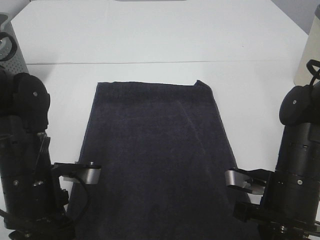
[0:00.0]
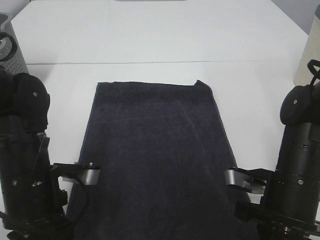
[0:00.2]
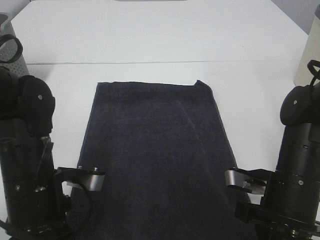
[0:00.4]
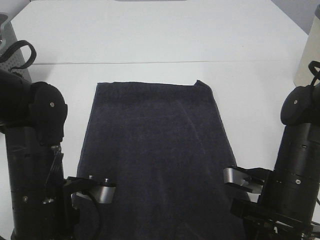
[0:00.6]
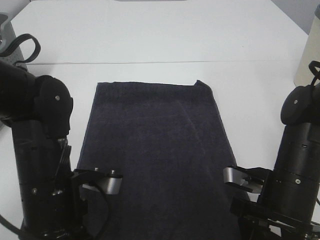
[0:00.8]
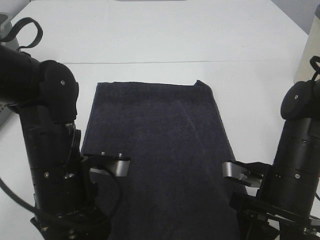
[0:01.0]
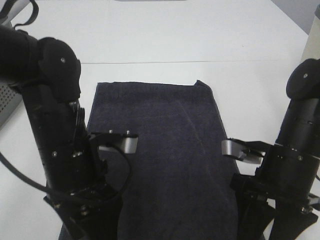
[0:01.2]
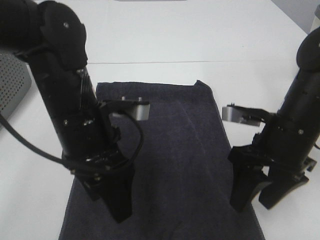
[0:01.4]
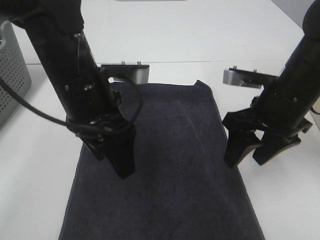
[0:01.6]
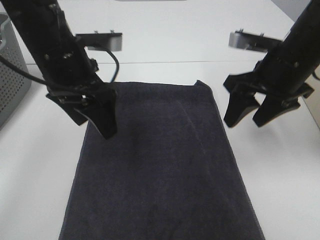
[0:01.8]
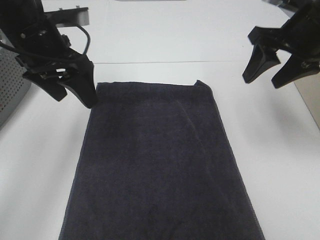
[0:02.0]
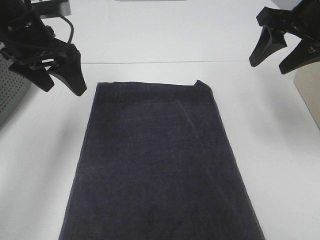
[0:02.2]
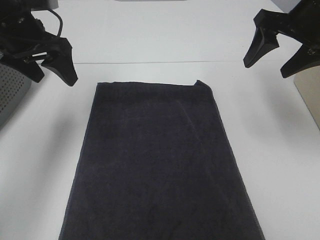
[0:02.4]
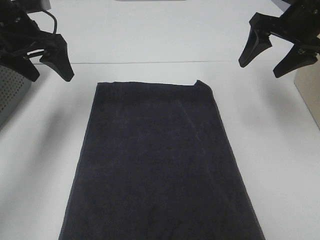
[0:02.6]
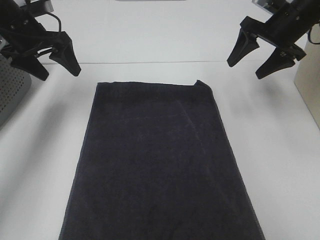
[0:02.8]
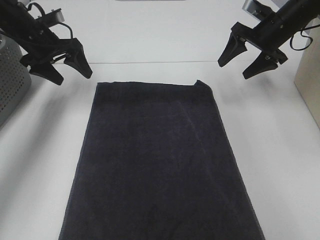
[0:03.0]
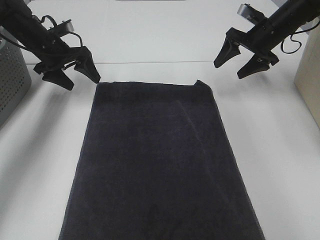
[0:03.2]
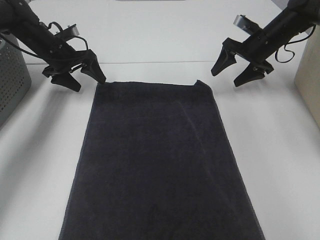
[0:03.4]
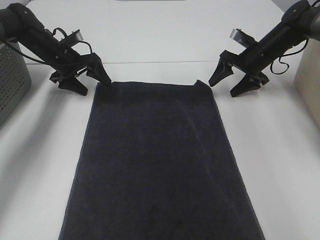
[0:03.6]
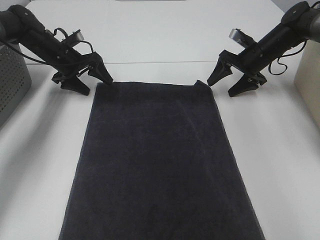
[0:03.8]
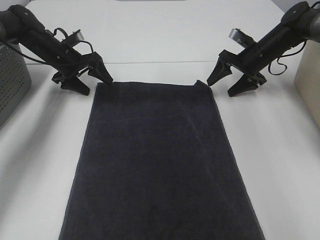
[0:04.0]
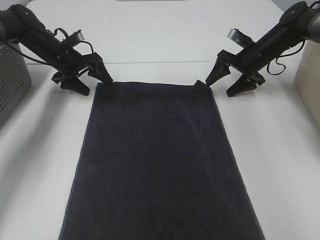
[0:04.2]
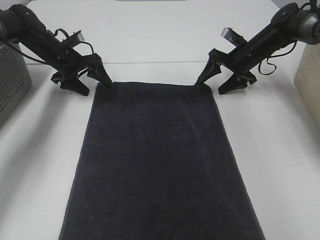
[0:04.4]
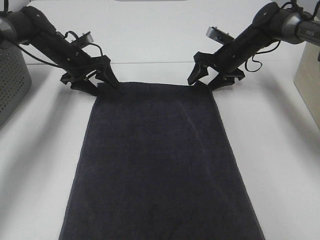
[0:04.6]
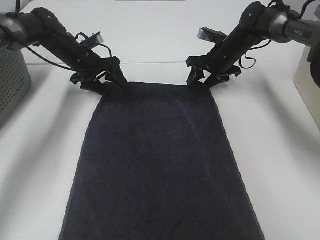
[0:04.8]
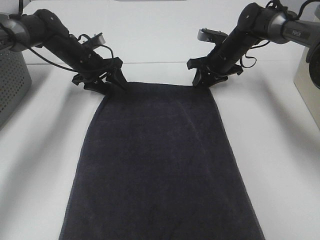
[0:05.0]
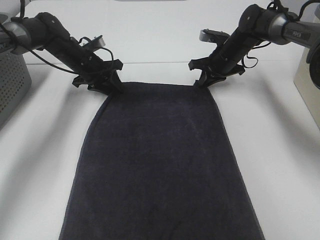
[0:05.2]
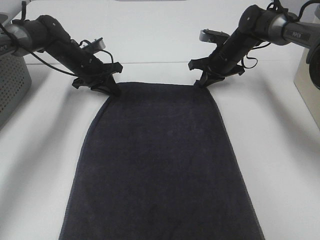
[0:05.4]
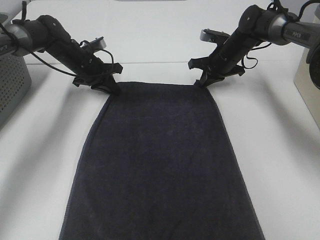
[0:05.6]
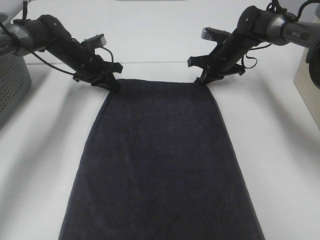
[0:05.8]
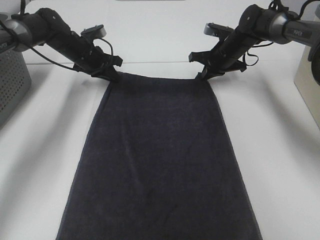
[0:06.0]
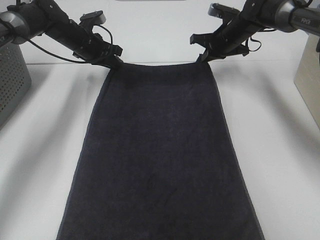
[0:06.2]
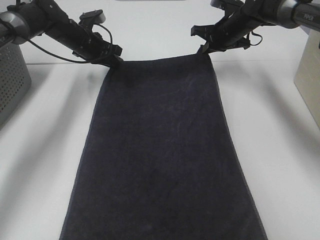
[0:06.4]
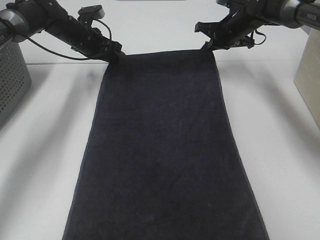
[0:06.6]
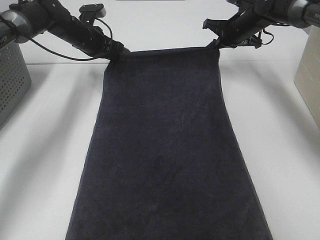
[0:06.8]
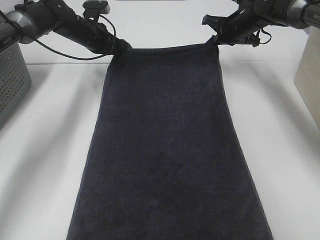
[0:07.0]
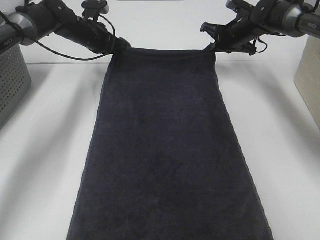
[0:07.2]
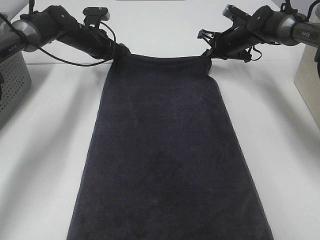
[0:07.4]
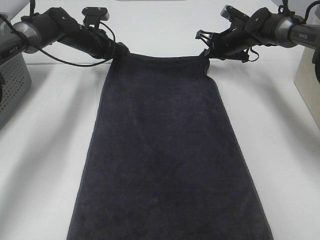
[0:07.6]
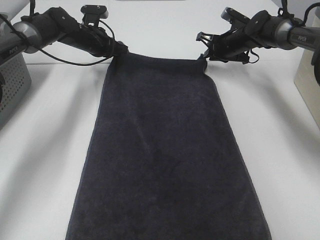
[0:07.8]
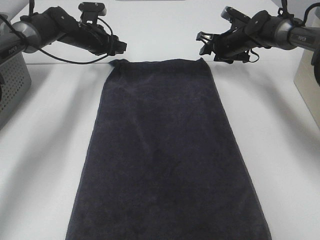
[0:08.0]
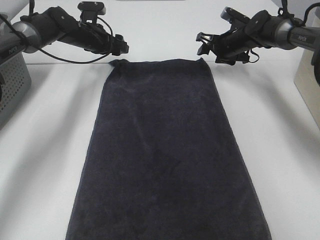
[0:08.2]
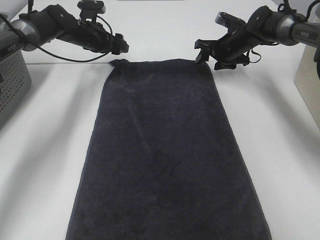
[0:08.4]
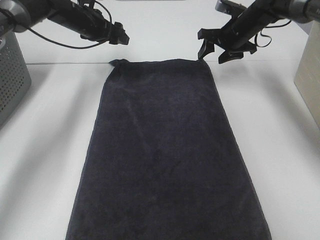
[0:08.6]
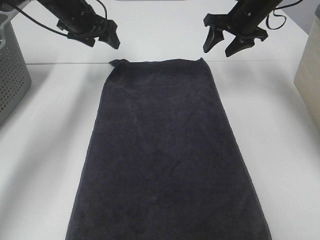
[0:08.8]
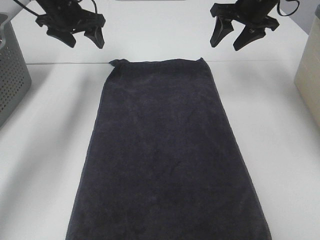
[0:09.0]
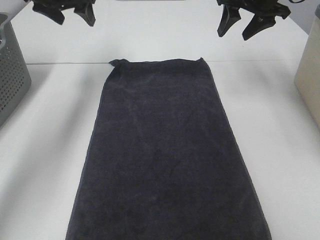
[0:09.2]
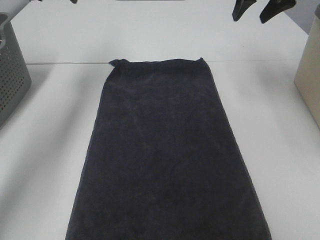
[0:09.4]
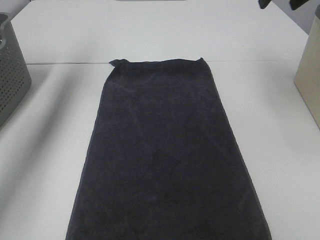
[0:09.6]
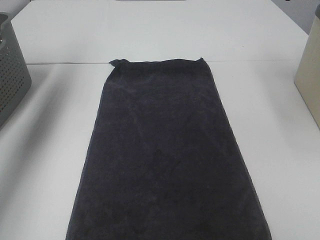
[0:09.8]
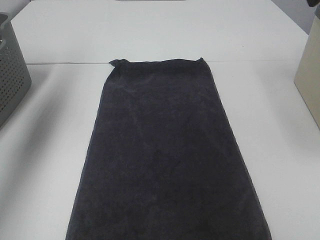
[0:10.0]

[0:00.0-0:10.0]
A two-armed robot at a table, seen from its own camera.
Task of the whole recording: Remove the towel and place it.
Step, 0:00.0 to 0:02.0: Left hand:adjust the gray towel.
Step, 0:00.0 to 0:02.0: Right hand:adjust the gray towel.
0:00.0 to 0:01.4: The left gripper heads upward and to the right, covering some 10 cm, and opens its fingers; the right gripper moves upward, about 5 cm, and opens up.
0:01.4 to 0:02.8: The left gripper travels forward and to the left by roughly 25 cm; the right gripper shifts roughly 20 cm forward.
0:02.8 to 0:04.2: Both grippers move downward and forward, some 15 cm.
0:04.2 to 0:05.8: The left gripper changes place by about 5 cm, and closes its fingers. The right gripper travels to the left by some 5 cm, and closes.
0:05.8 to 0:07.2: The left gripper ends up some 5 cm from where it was. Meanwhile the right gripper changes place by about 5 cm.
0:07.2 to 0:08.6: The right gripper shifts by roughly 5 cm, and opens up; the left gripper opens up.
0:08.6 to 0:10.0: The right gripper goes roughly 35 cm backward and upward. Meanwhile the left gripper shifts about 35 cm upward, backward and to the left.

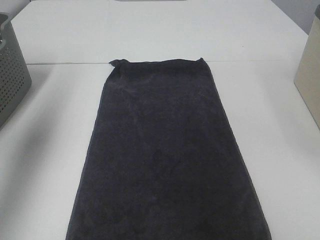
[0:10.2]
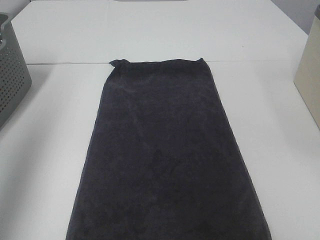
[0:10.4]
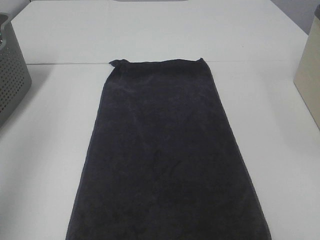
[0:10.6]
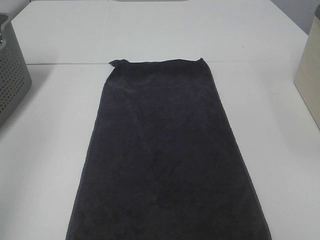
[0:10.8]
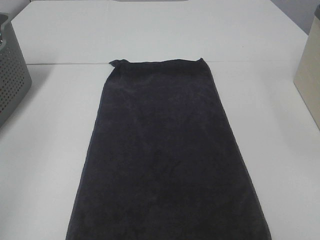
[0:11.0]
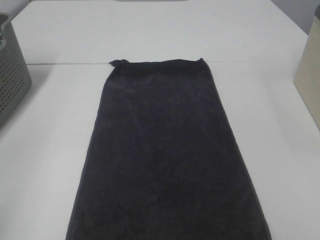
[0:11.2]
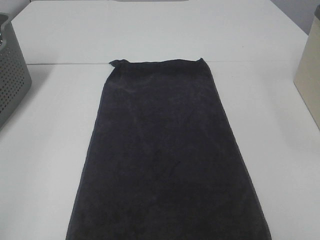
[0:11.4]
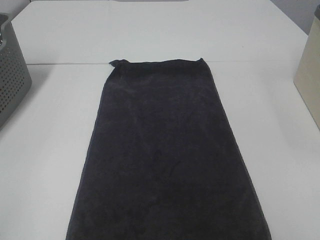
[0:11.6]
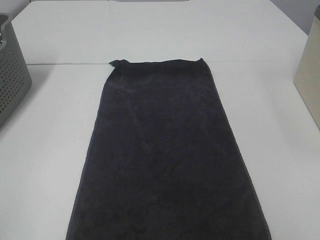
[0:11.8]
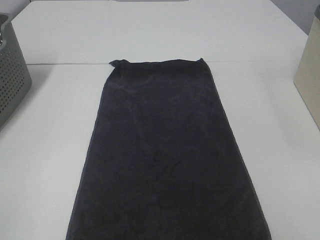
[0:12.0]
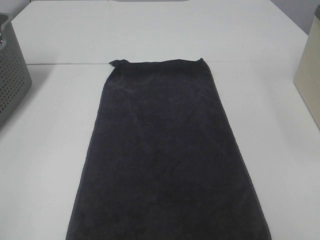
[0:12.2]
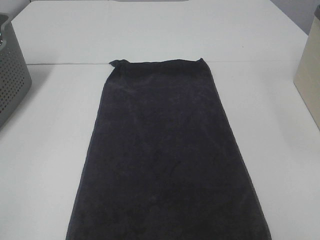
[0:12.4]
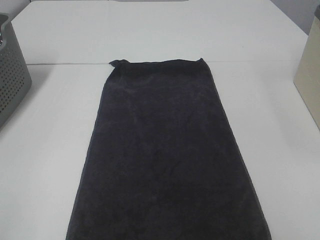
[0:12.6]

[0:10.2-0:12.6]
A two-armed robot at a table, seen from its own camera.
Task of the whole recording: Remove the towel and place it.
0:10.2 to 0:11.4: The left gripper moves backward and downward, some 30 cm.

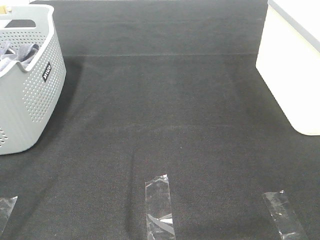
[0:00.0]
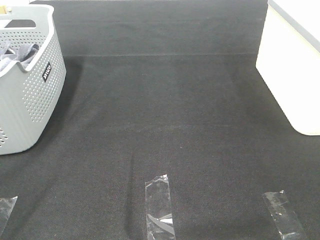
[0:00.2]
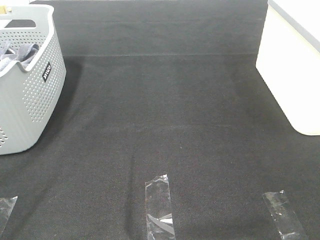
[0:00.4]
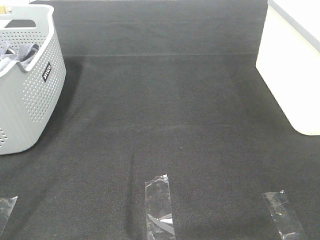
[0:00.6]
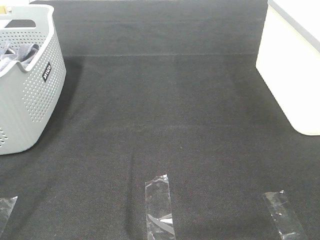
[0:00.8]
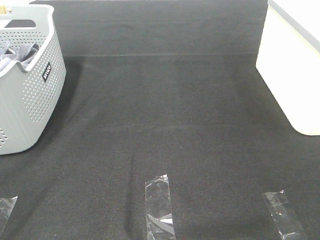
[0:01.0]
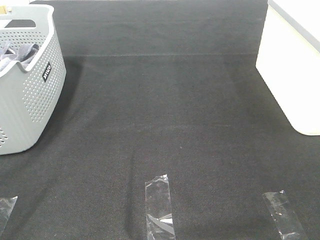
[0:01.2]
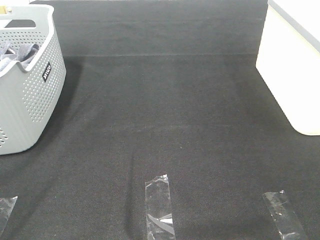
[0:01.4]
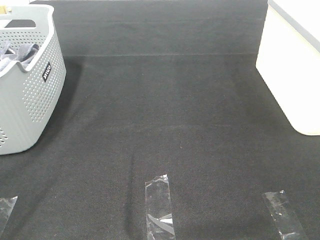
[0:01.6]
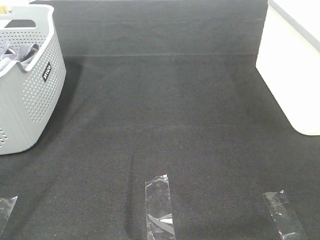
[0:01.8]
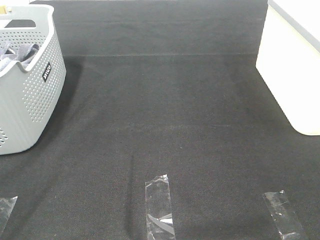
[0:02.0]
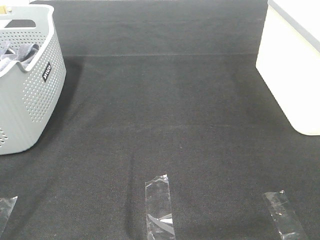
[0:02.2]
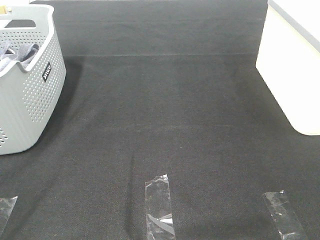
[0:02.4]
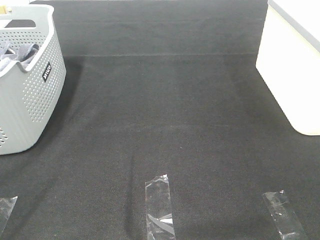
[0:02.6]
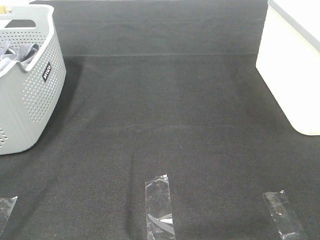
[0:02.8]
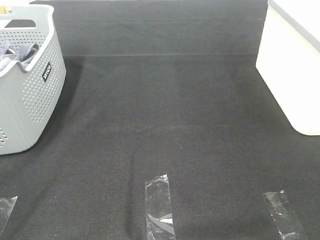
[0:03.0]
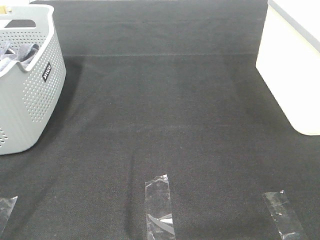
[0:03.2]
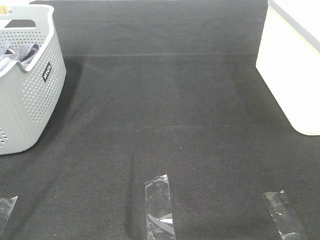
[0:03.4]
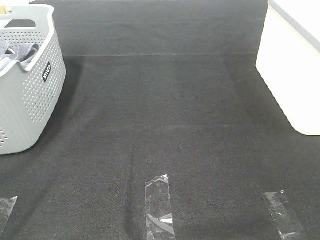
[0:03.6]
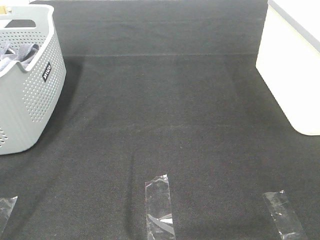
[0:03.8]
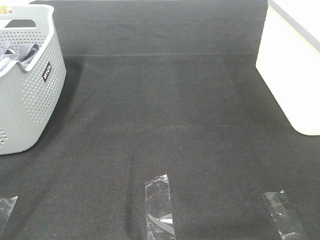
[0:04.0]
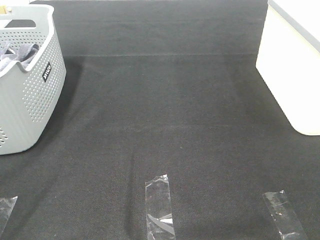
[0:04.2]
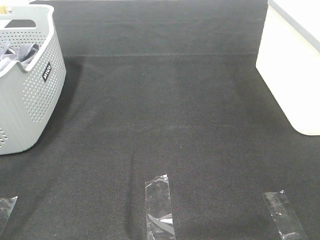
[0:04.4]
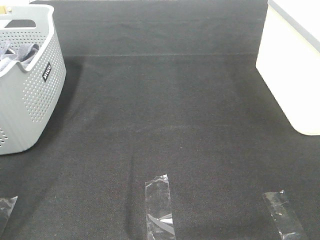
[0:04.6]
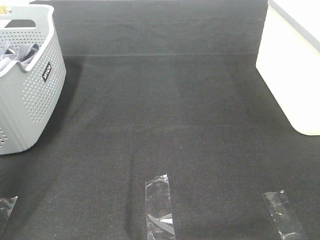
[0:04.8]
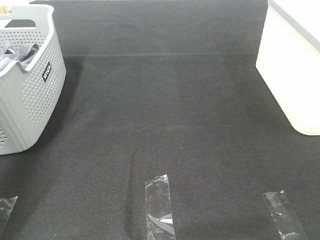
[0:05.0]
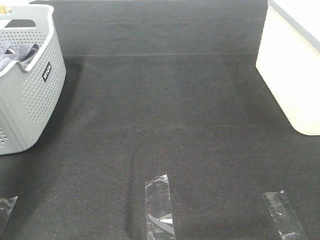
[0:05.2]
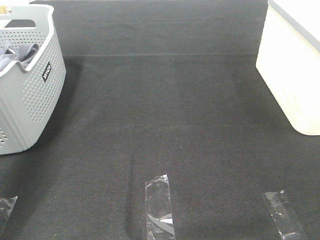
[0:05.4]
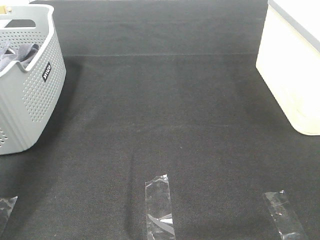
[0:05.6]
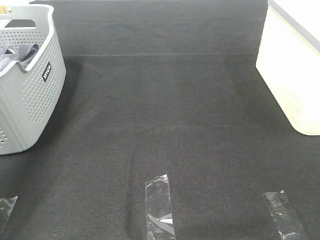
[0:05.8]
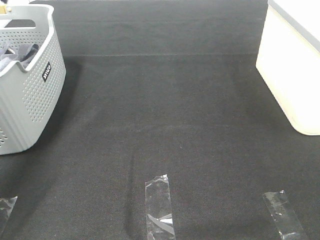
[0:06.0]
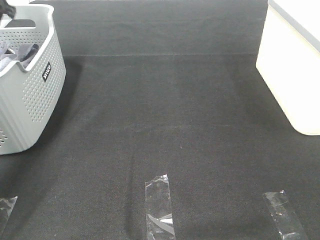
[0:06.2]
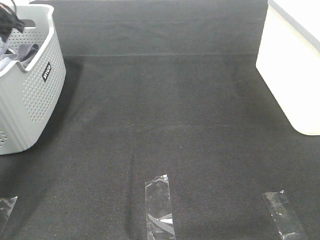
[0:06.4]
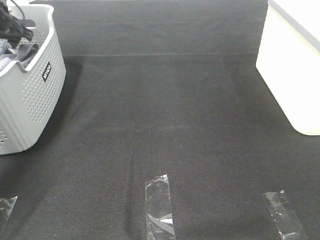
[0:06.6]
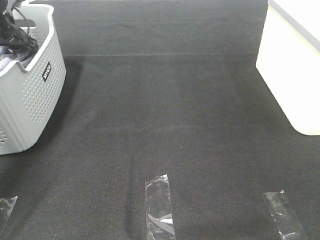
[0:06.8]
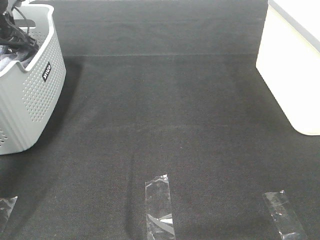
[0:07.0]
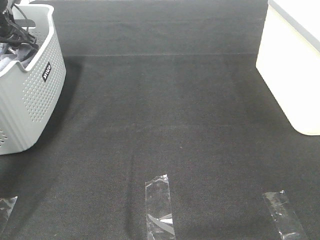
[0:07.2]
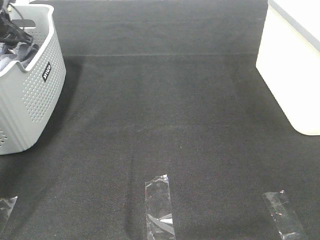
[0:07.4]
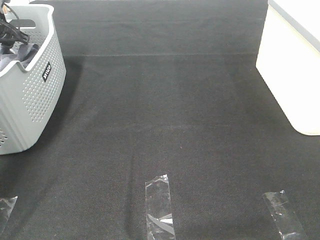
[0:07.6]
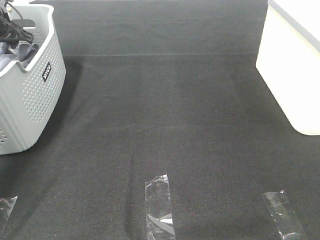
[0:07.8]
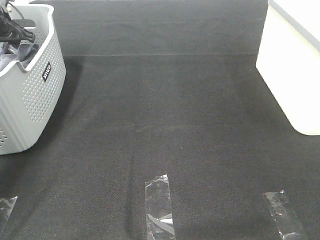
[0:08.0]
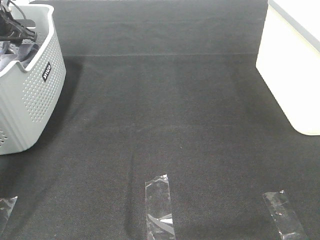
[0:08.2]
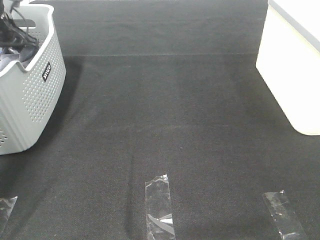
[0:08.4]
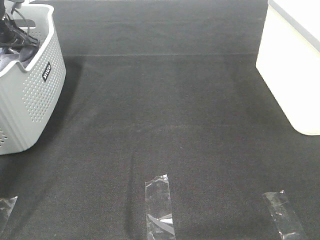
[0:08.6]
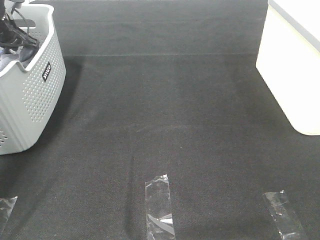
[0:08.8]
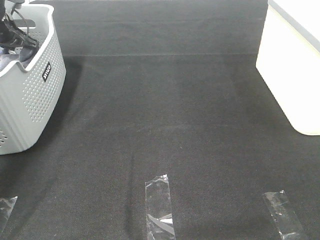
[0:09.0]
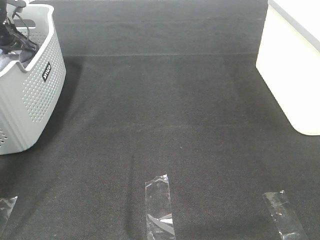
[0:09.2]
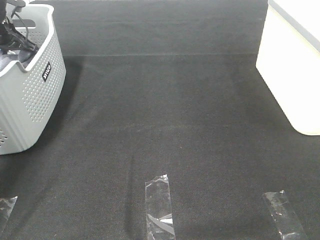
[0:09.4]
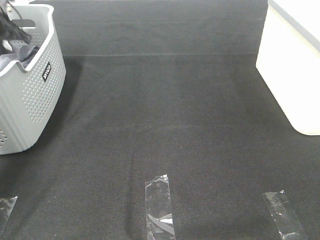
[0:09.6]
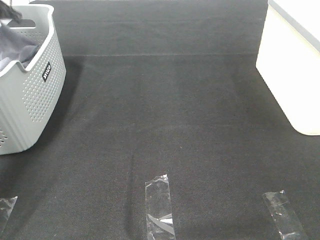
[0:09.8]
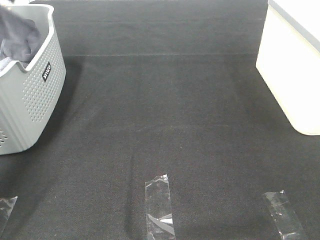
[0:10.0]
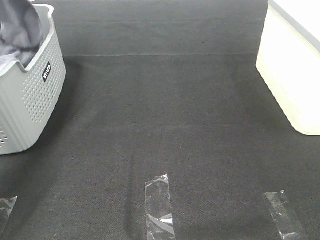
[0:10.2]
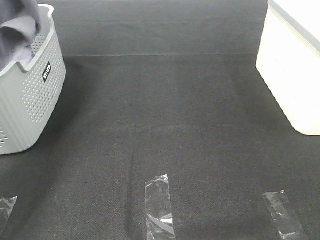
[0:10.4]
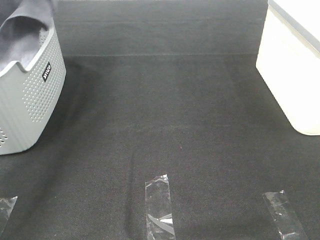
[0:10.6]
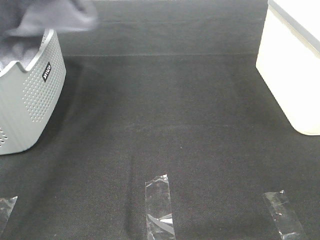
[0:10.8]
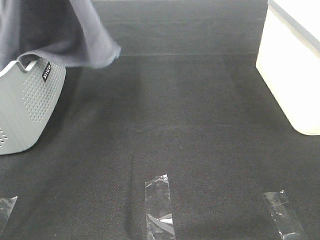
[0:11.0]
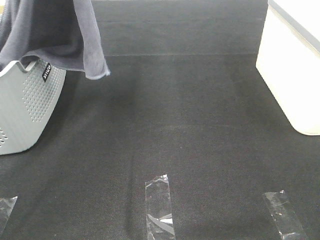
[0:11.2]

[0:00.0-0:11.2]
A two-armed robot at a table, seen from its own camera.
Task of the whole recording: Remove the towel and place it.
0:00.0 to 0:03.2: Both grippers stay put.
0:03.2 to 0:04.8: The left gripper shifts approximately 20 cm forward.
0:04.8 to 0:06.4: The left gripper moves forward, some 35 cm.
0:06.4 to 0:08.0: The grippers move only a little.
0:08.0 to 0:09.6: The left gripper closes up.
0:09.6 to 0:11.2: The left gripper goes approximately 40 cm upward, to the right and backward.
